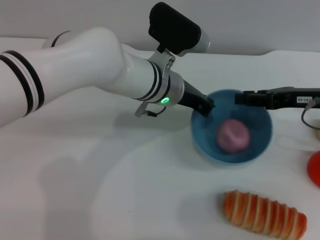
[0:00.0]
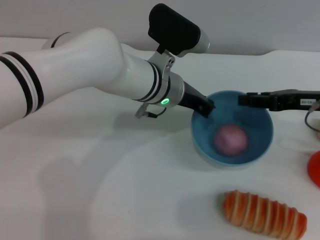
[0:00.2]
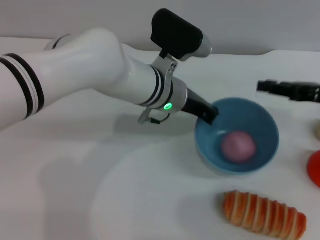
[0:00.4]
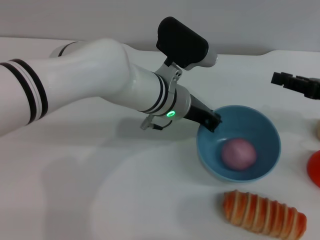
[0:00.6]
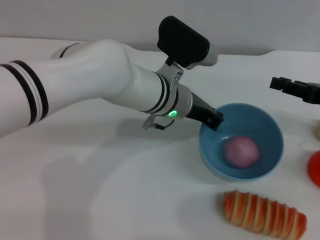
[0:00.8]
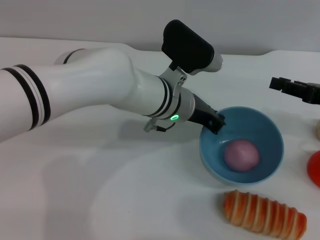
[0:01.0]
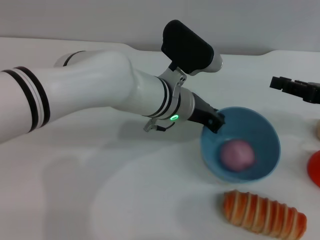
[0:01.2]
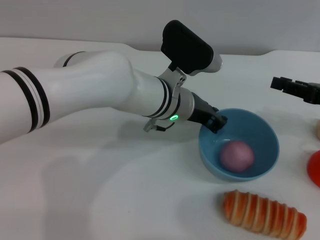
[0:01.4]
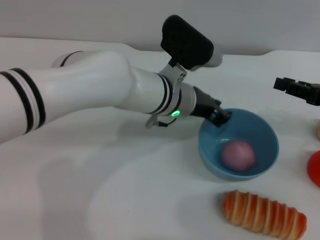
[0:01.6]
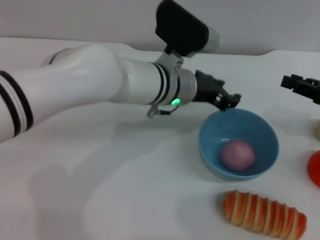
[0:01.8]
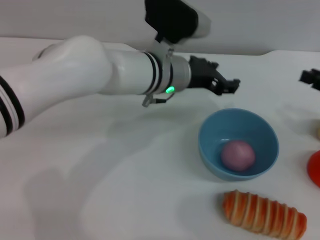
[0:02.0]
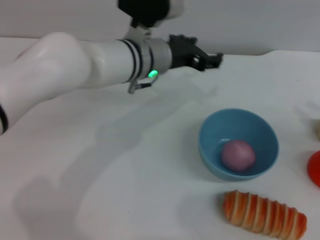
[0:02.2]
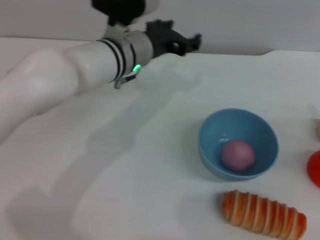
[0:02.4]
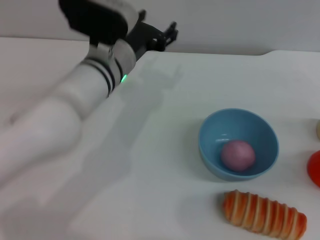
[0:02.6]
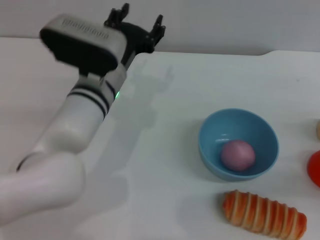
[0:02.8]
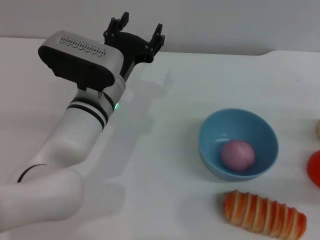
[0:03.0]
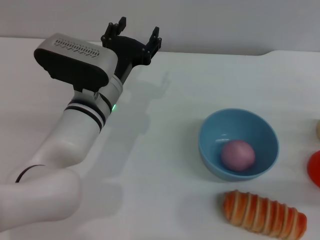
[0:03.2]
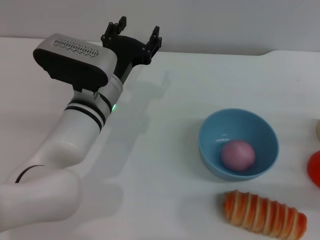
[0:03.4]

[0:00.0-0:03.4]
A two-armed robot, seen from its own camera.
Task of the whole recording: put the peach into the blue bowl and pour it out repeatedly.
Step, 0:00.6 to 0:02.2: Place the bowl on the table.
0:00.0 to 0:01.6: The right gripper shifts roughly 5 cm to the right.
0:01.6 to 0:03.4: The left gripper shifts some 10 cm to the left, and opens. Meanwhile the right gripper shifts some 10 cm downward and backward, and opens.
